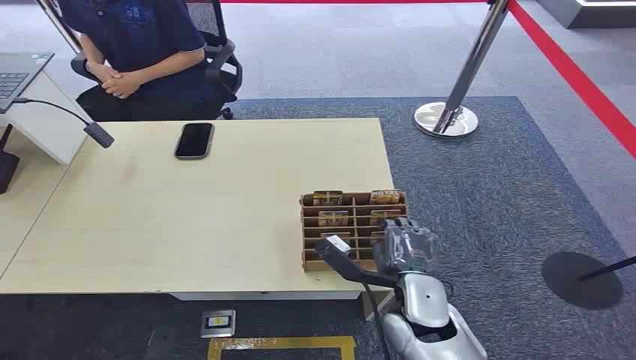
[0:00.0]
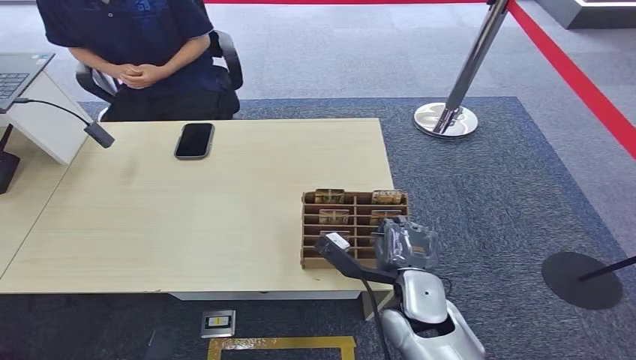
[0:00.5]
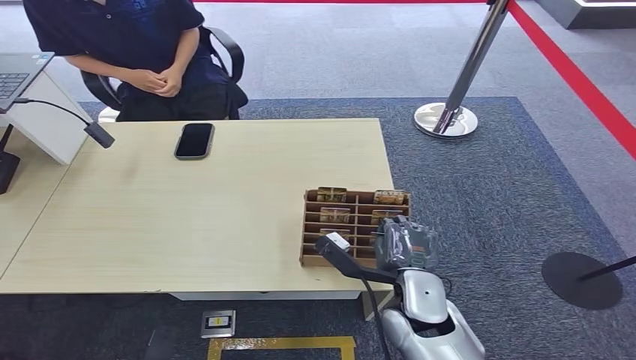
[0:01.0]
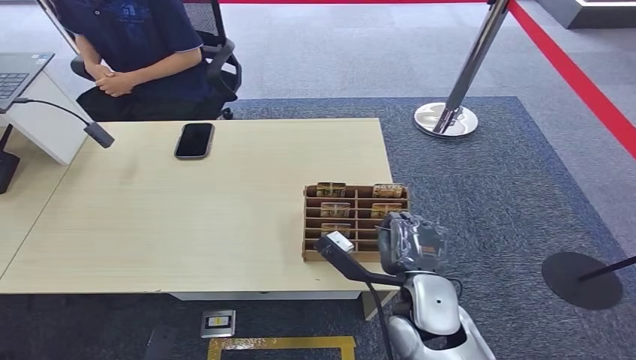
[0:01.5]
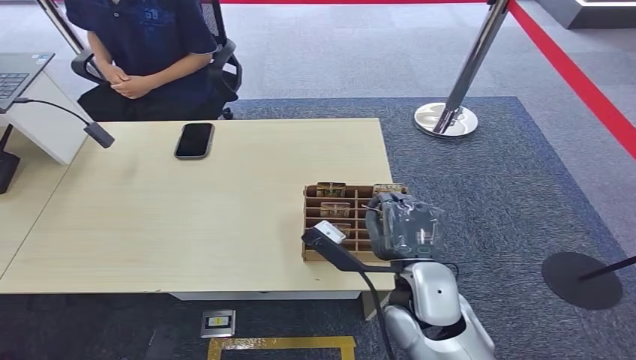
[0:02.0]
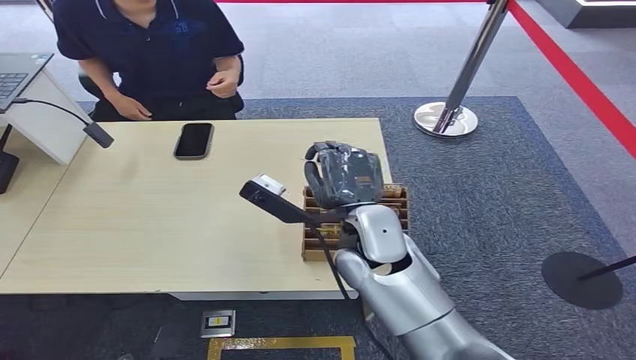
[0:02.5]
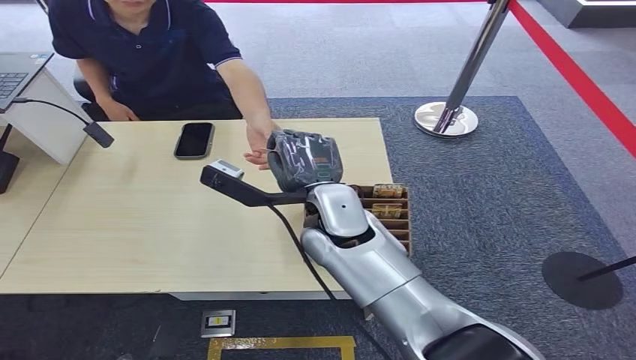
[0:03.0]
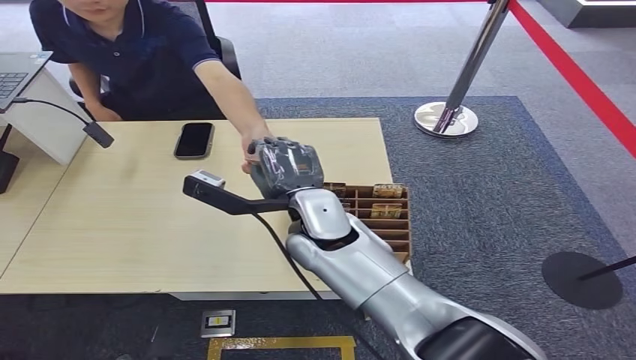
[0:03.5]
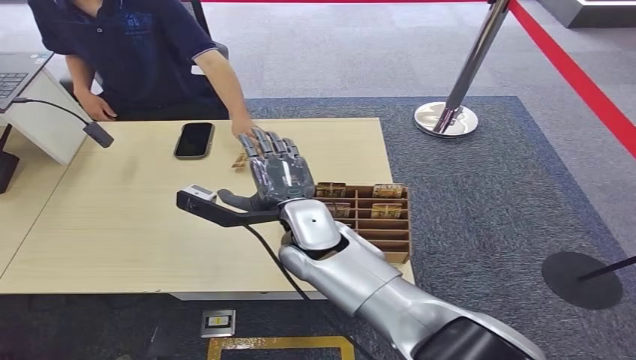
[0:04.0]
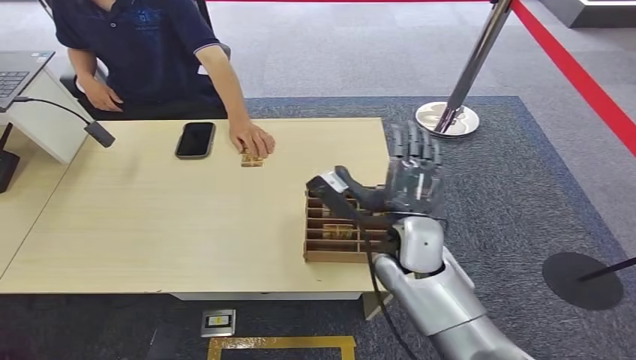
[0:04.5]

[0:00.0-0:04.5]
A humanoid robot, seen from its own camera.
Step, 0:00.0 to 0:01.5: Pick up the room card from the card holder.
Step, 0:02.0 to 0:04.5: Hand the room card to the target.
0:02.0 to 0:04.5: The right hand shifts some 10 cm forward, and moves approximately 10 cm to the left and comes back.

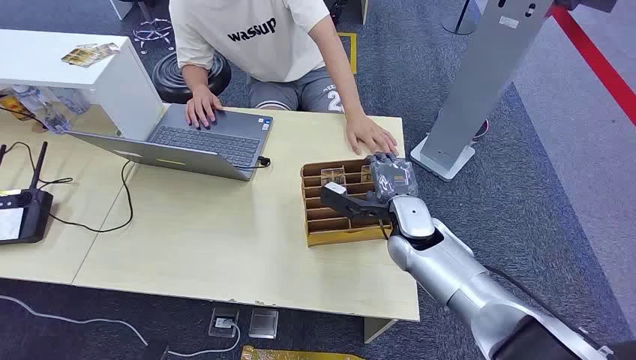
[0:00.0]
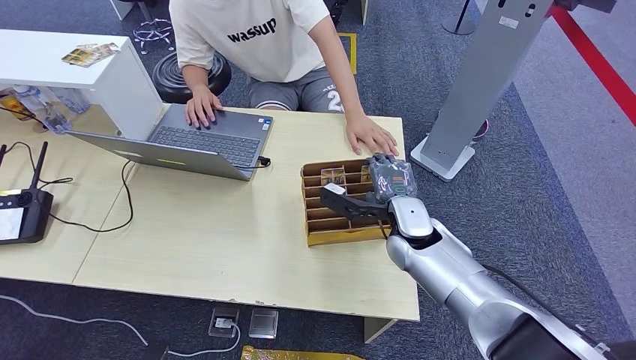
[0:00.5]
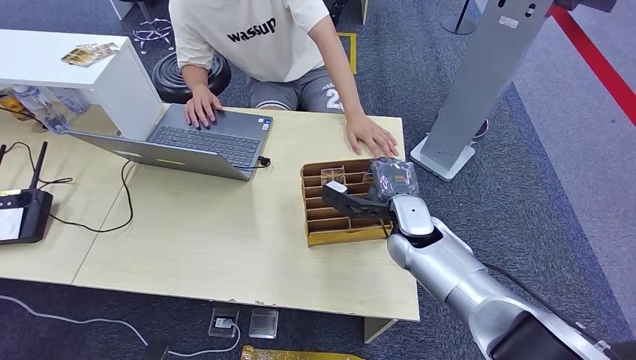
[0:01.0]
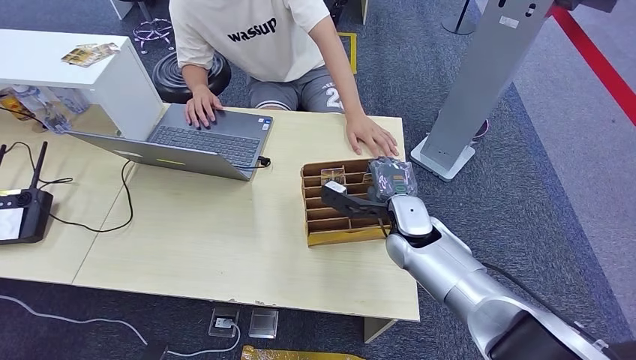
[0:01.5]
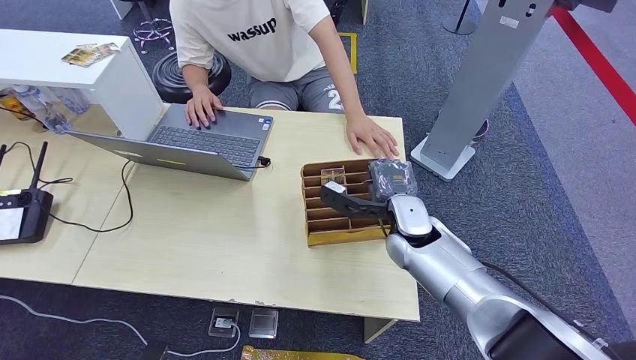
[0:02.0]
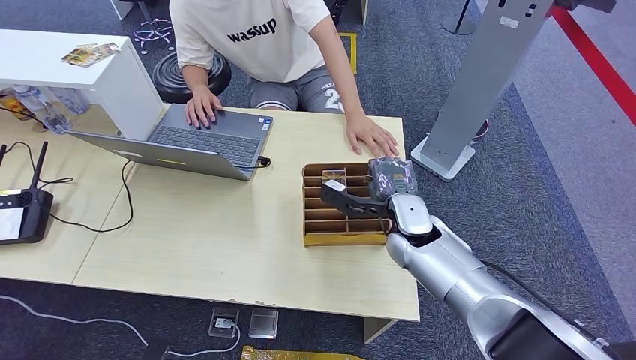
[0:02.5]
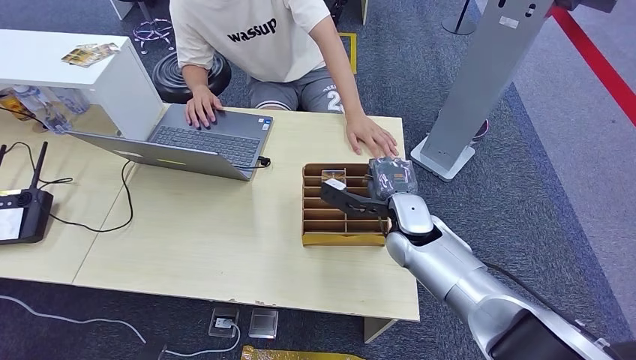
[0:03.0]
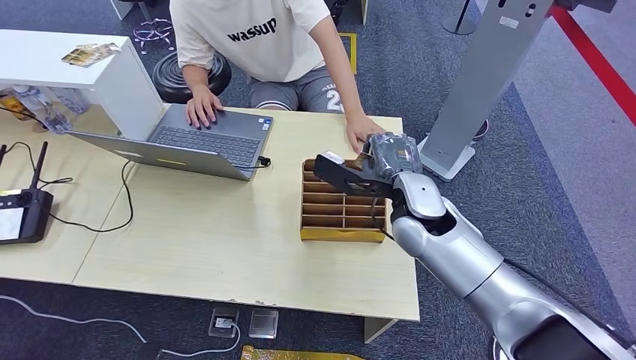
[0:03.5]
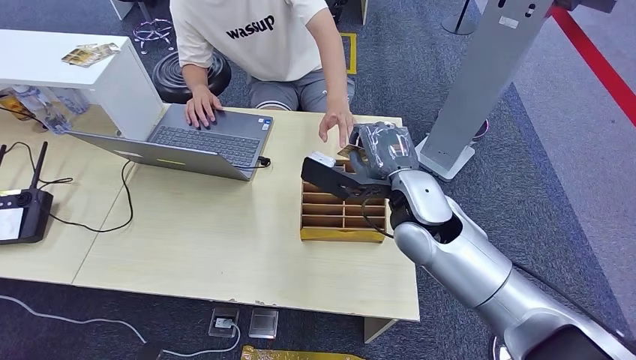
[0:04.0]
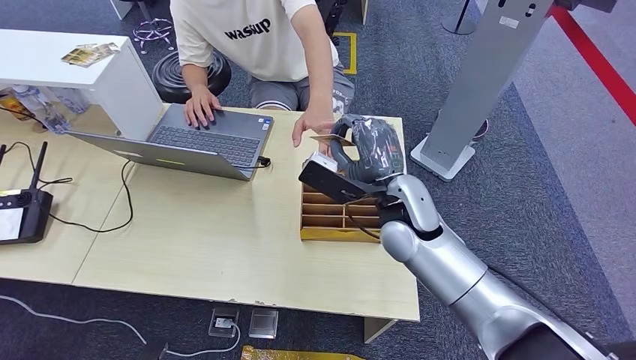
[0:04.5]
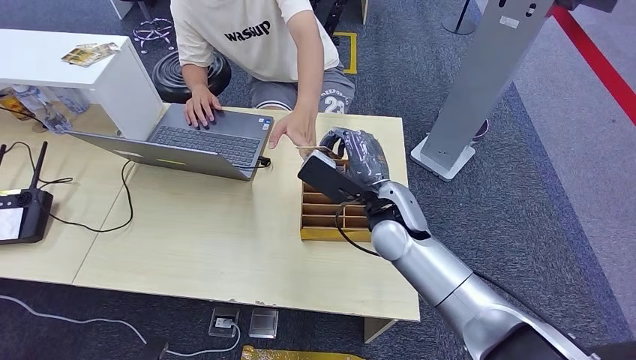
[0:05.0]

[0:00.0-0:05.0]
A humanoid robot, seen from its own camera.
Step, 0:00.0 to 0:03.0: Pick up the room card from the card holder.
Step, 0:04.0 to 0:05.0: Hand the room card to the target.
0:02.5 to 0:05.0: The right hand goes roughly 5 cm upward.

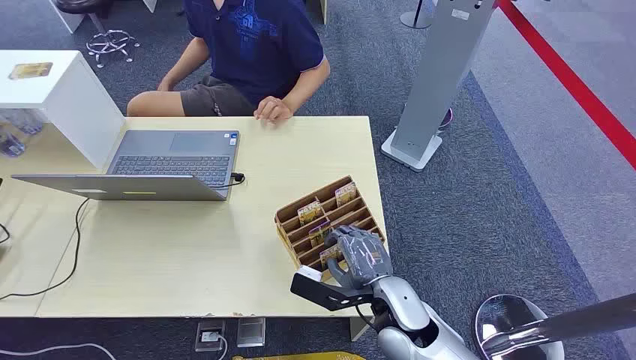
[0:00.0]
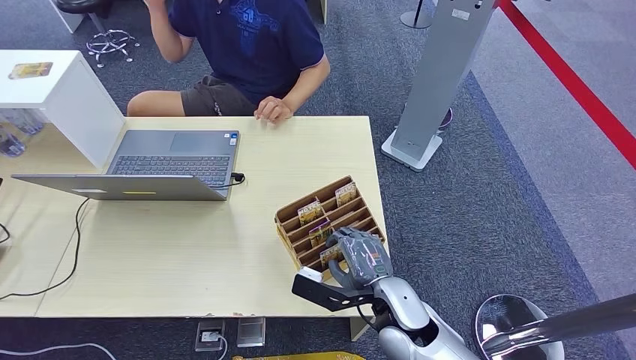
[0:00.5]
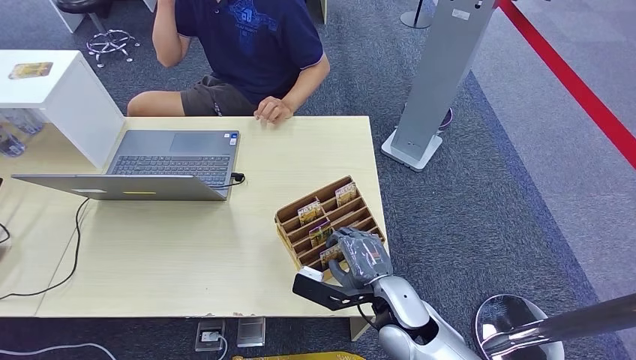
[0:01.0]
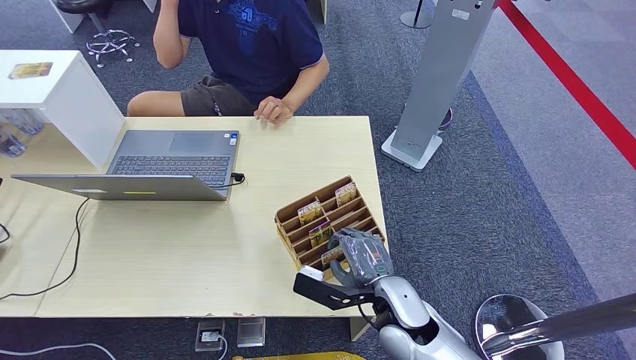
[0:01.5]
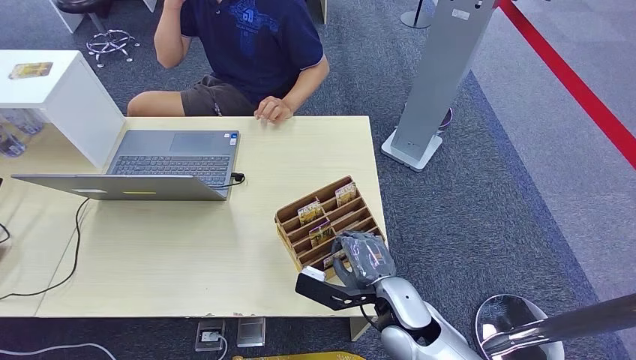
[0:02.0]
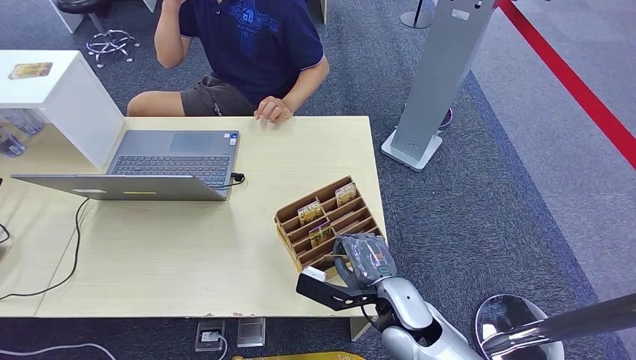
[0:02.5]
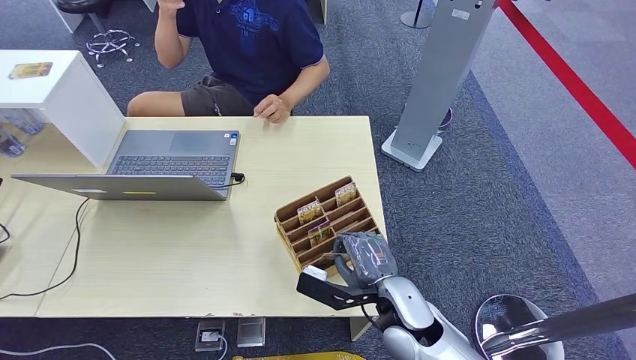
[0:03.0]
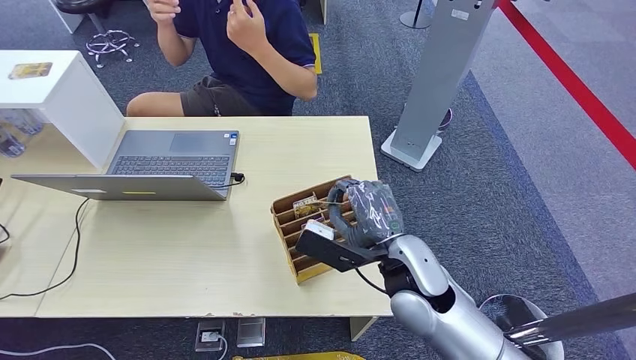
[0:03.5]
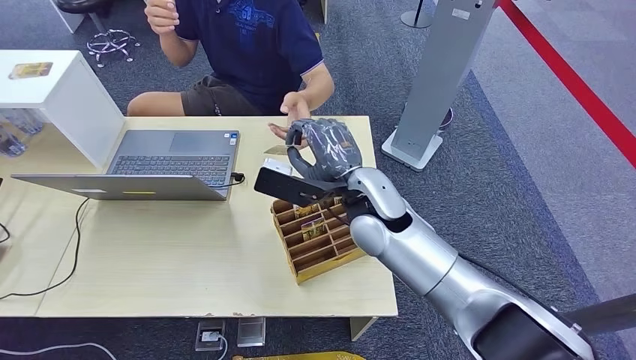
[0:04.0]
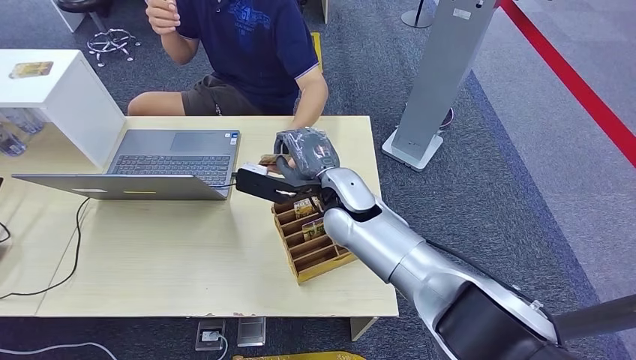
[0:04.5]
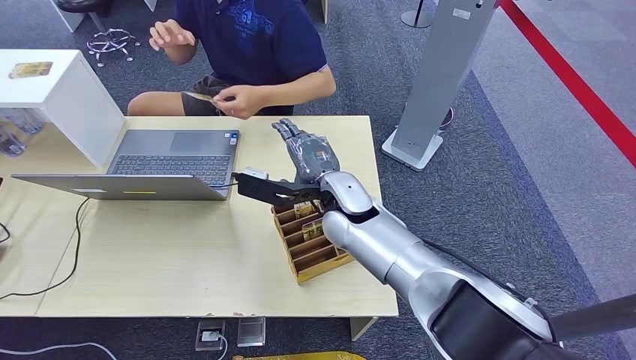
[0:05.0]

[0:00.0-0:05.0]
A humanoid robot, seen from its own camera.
Step, 0:00.0 to 0:03.5: Pick up the room card from the card holder.
Step, 0:04.0 to 0:05.0: Hand the room card to the target.
0:02.5 to 0:05.0: The right hand is displaced forward, upward and to the left by approximately 20 cm.
